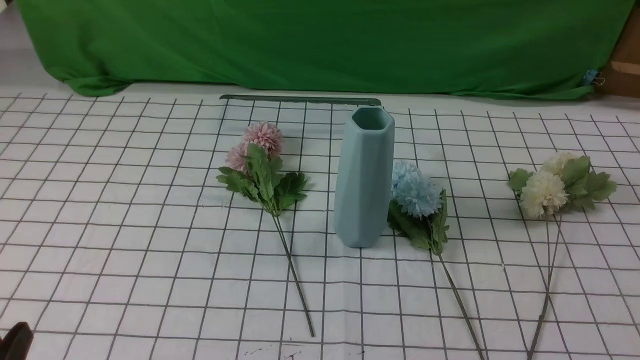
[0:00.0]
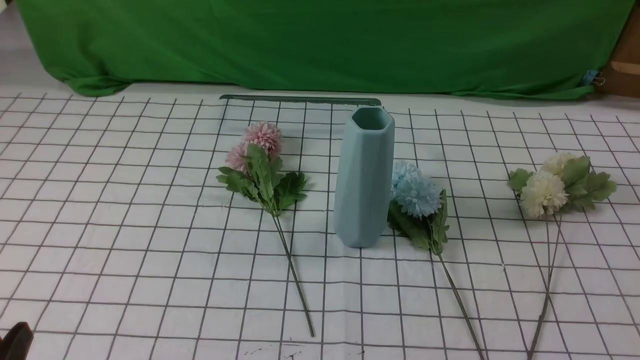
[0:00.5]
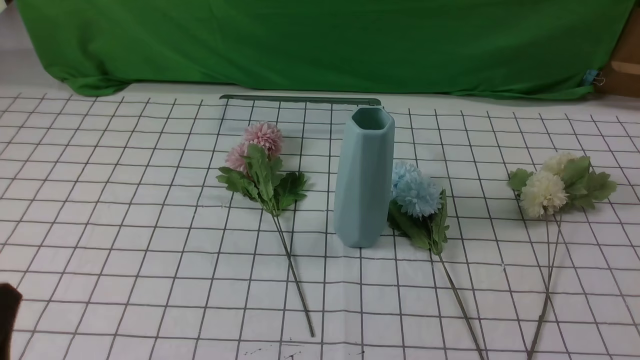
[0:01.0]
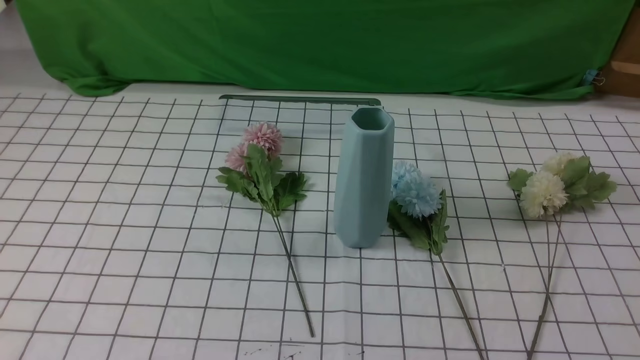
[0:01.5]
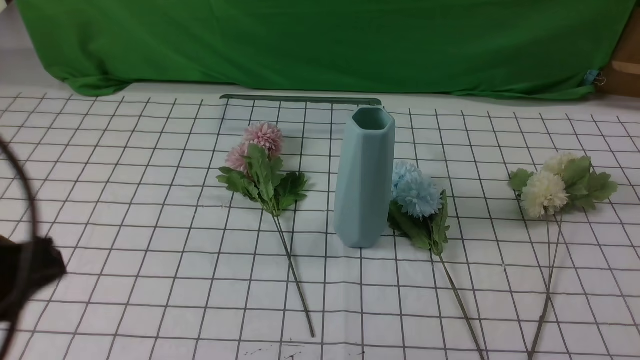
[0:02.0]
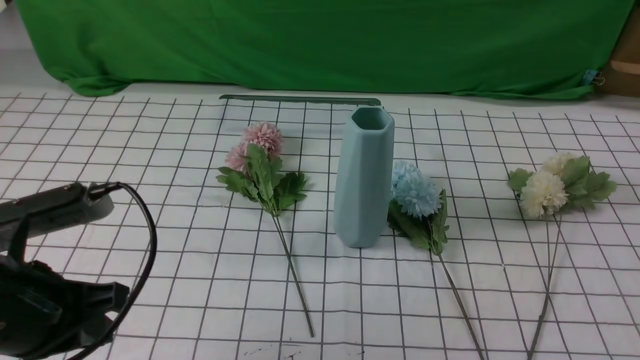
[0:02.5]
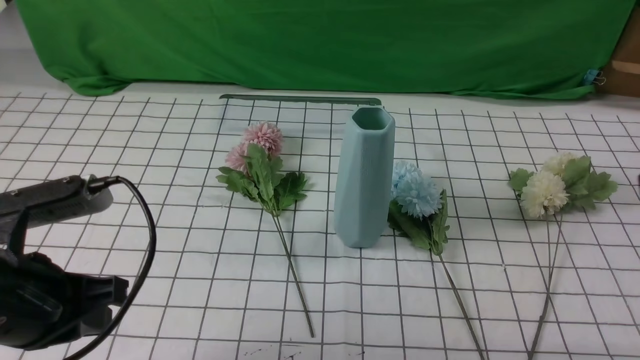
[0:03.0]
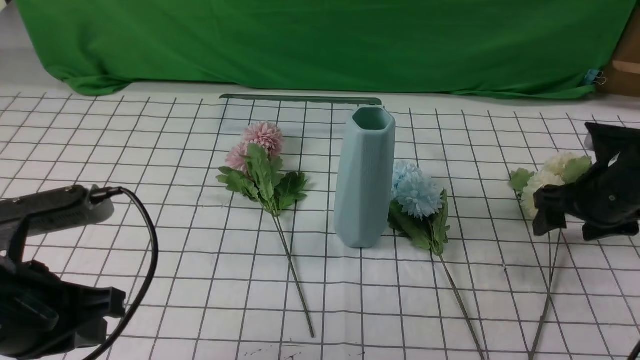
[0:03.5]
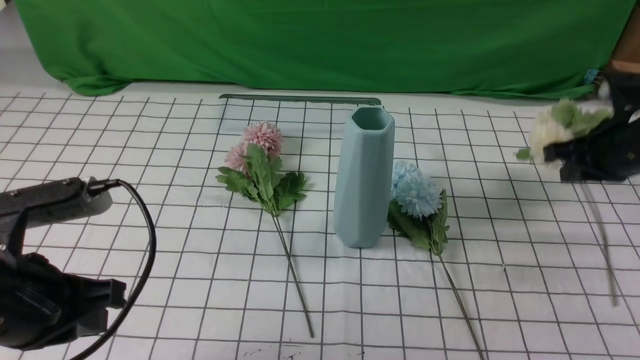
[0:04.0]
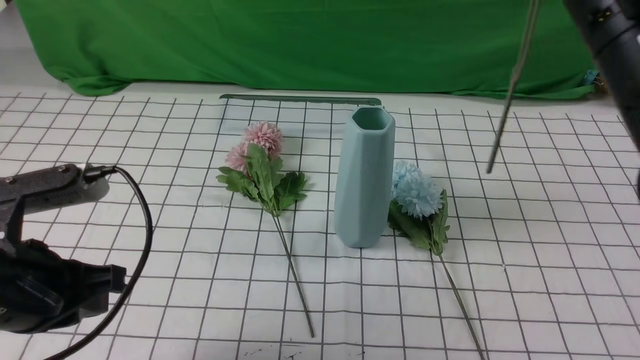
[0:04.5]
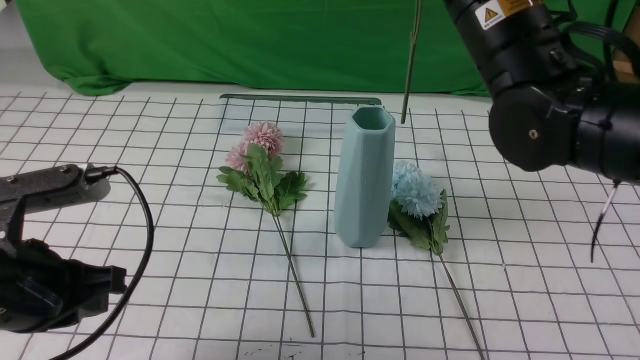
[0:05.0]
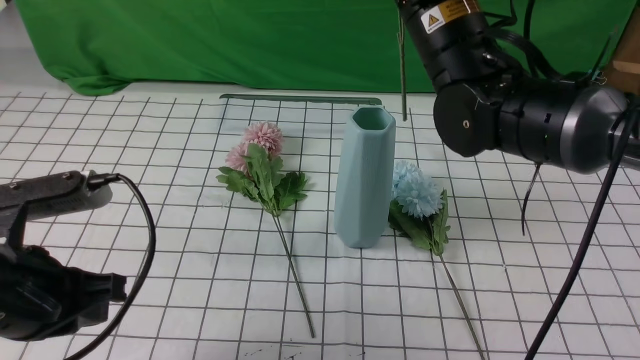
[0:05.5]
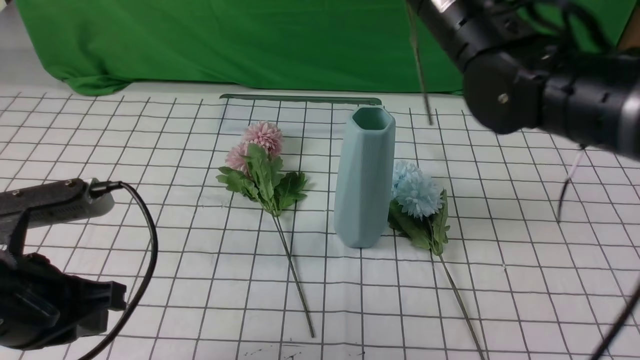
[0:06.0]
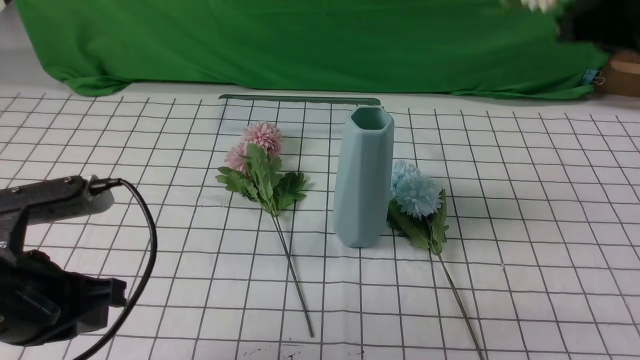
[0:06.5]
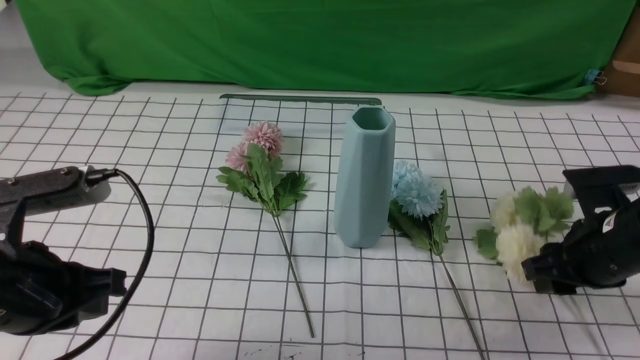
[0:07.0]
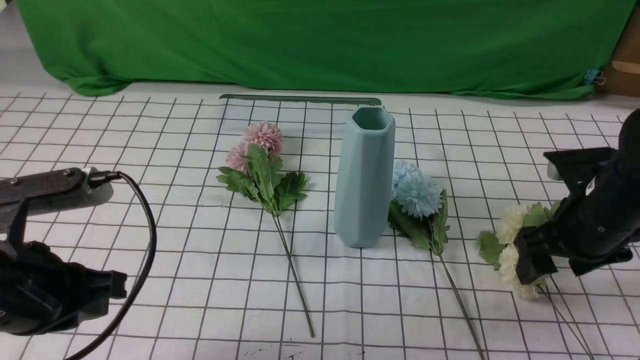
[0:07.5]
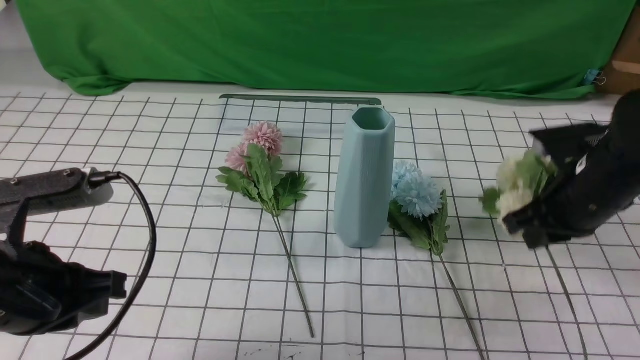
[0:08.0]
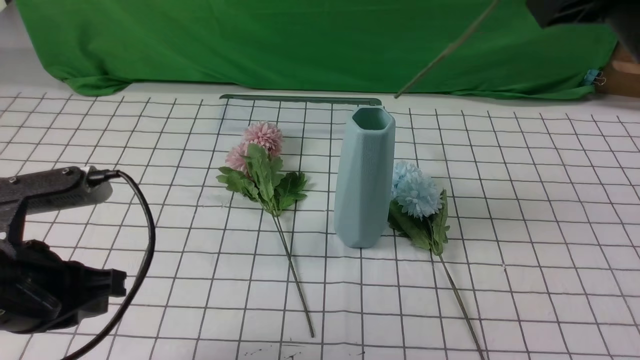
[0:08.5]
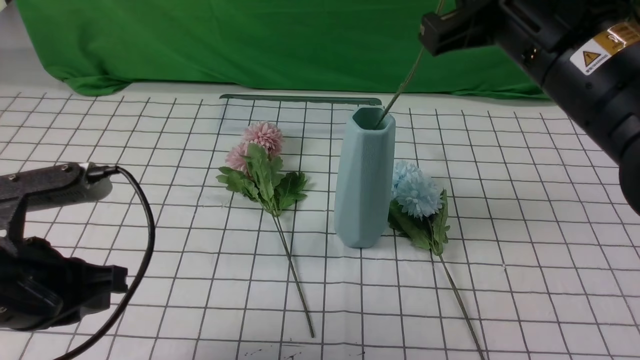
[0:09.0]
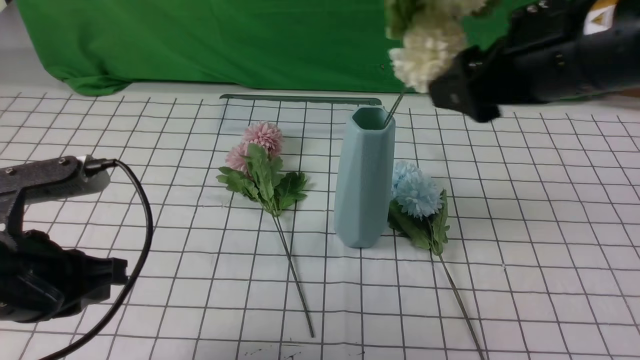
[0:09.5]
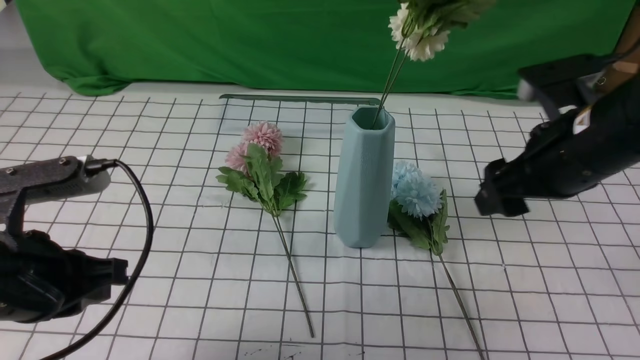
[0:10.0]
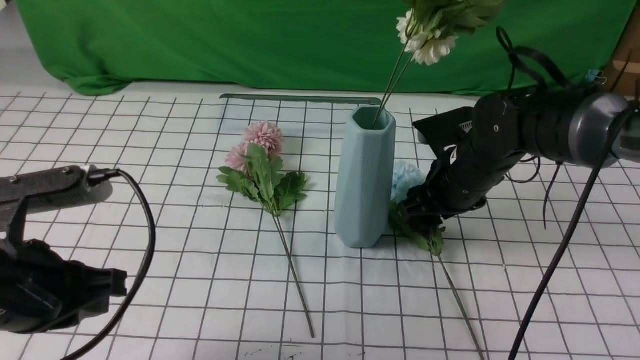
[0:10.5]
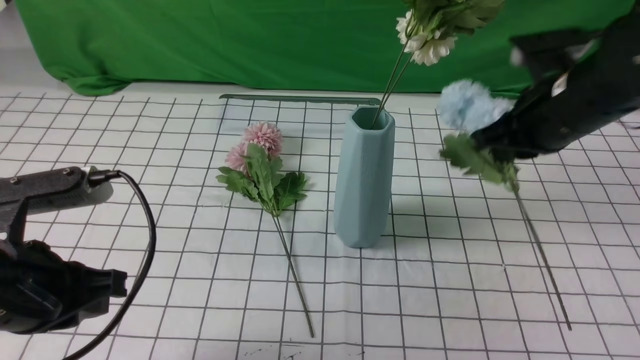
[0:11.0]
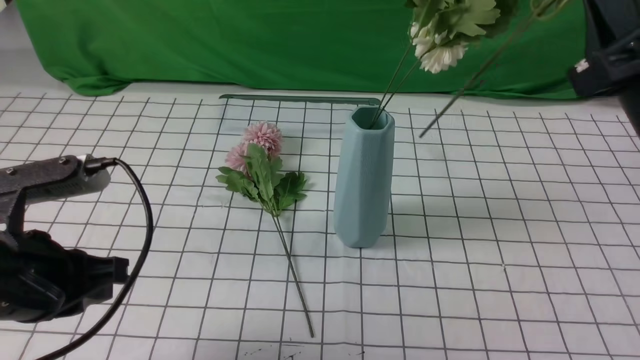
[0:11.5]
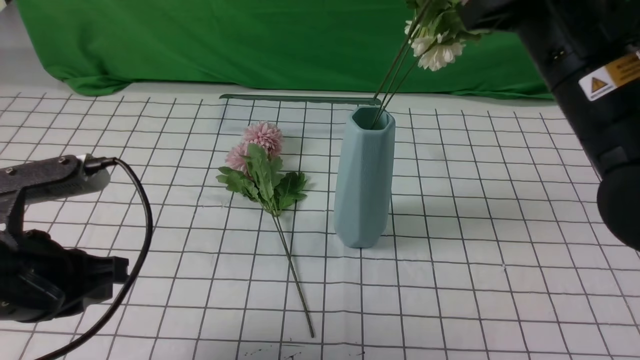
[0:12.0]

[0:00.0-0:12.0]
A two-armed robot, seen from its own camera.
Task of the whole recording: insert the flowers into the vase on the table with the white tablecloth.
Step, 0:00.0 to 0:07.5: use the right arm to grab a bunch of fresh flowers.
Step, 0:08.0 to 0:09.5: use the right arm to insert the flowers into the vase.
Step, 0:10.0 to 0:10.5: use the right arm to grab a bunch of fresh flowers.
0:00.0 to 0:02.0: The left gripper shifts some 15 cm upward and forward, and closes up.
0:02.0 to 0:04.0: The left gripper heads downward and forward, covering roughly 10 cm. The right gripper moves forward, about 30 cm, and opens, then closes again.
0:04.0 to 0:06.0: The right gripper goes about 20 cm to the left and upward.
0:06.0 to 0:08.0: The right gripper shifts about 20 cm to the right and downward, and opens, then closes again.
0:08.0 to 0:10.0: The right gripper reaches approximately 15 cm upward, then returns, and opens its fingers.
0:10.0 to 0:12.0: The right gripper moves upward, approximately 10 cm, and closes its fingers.

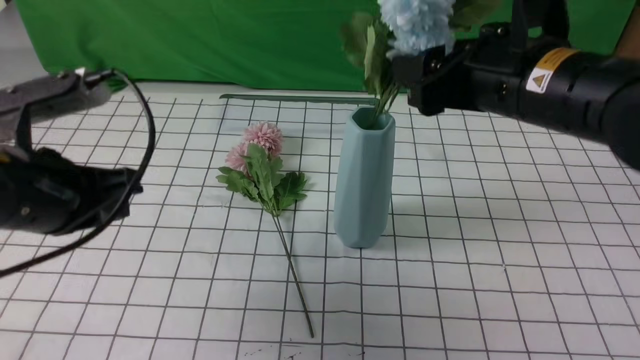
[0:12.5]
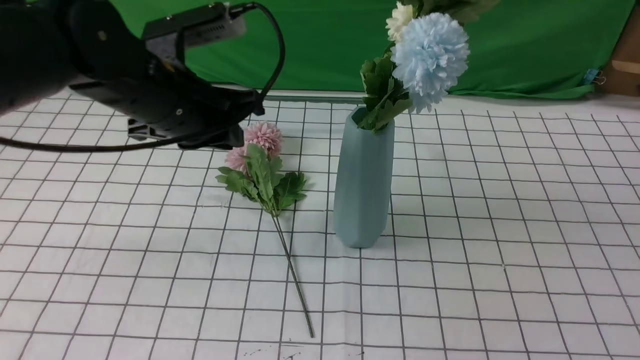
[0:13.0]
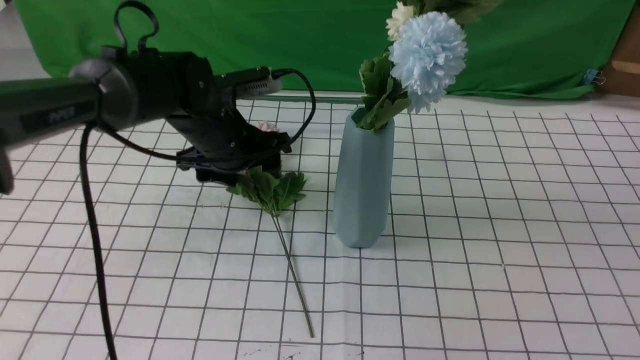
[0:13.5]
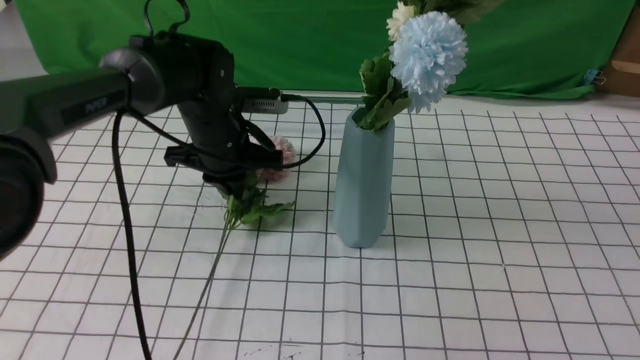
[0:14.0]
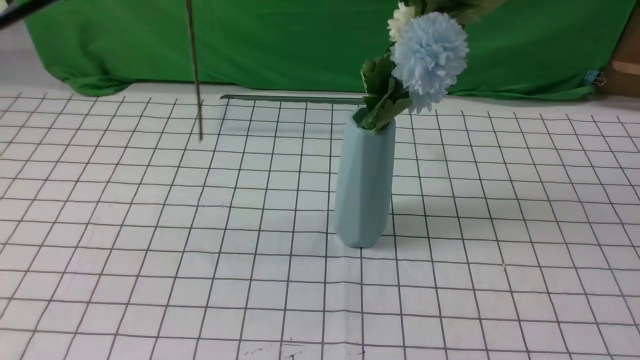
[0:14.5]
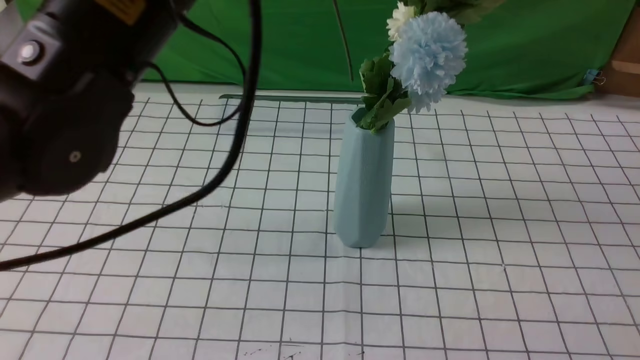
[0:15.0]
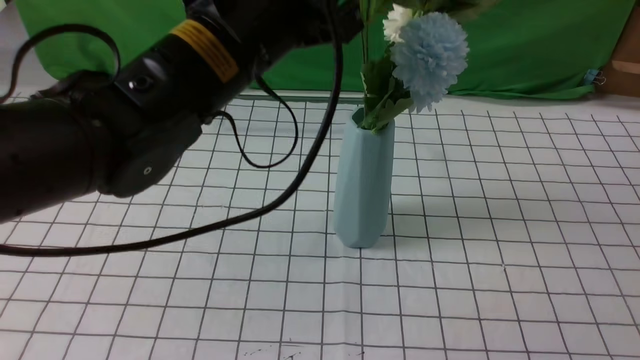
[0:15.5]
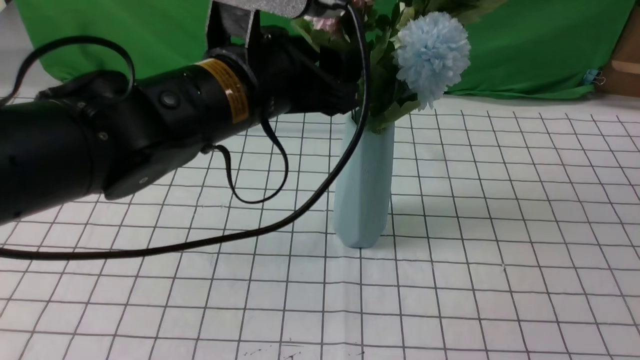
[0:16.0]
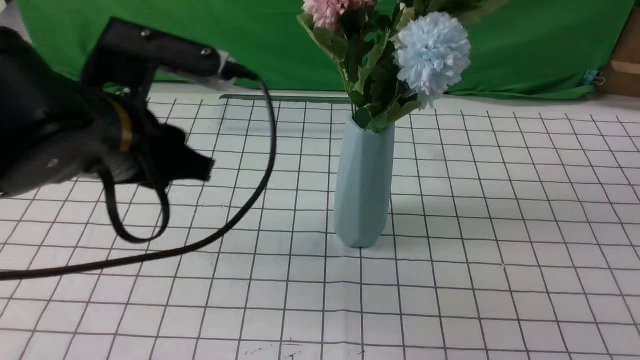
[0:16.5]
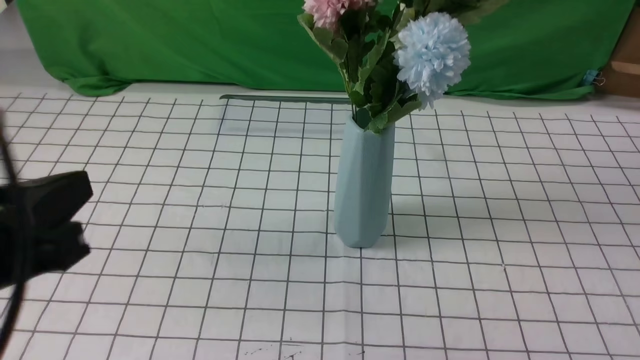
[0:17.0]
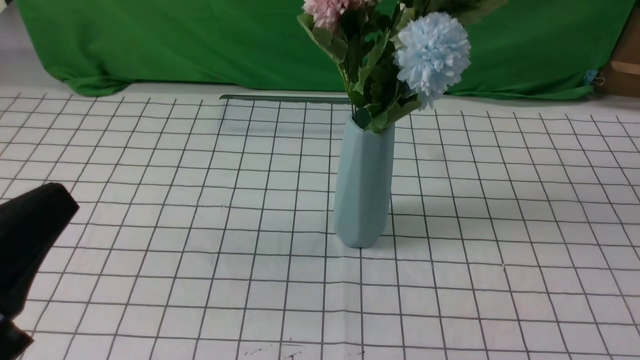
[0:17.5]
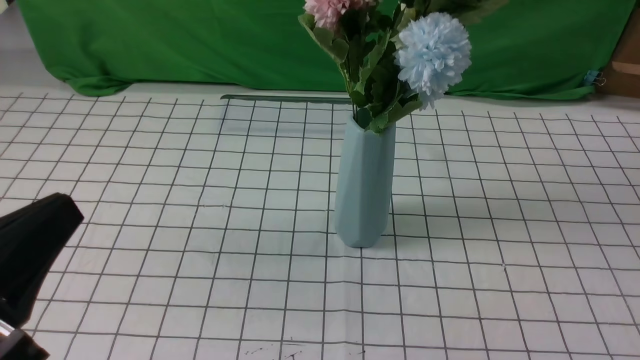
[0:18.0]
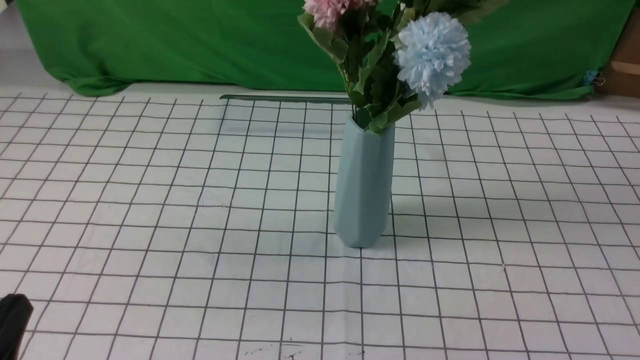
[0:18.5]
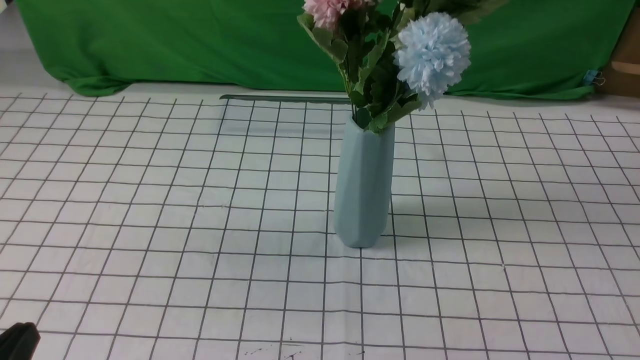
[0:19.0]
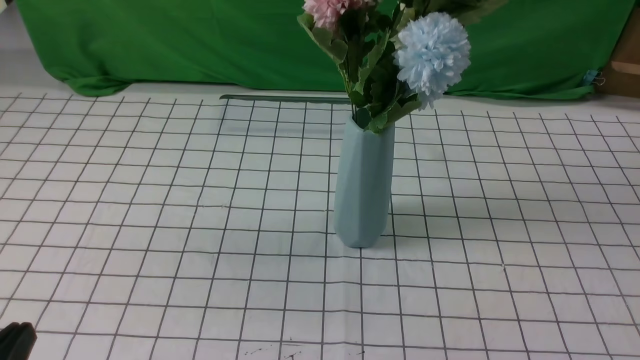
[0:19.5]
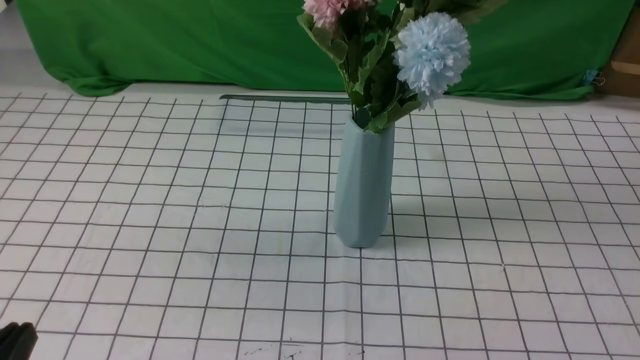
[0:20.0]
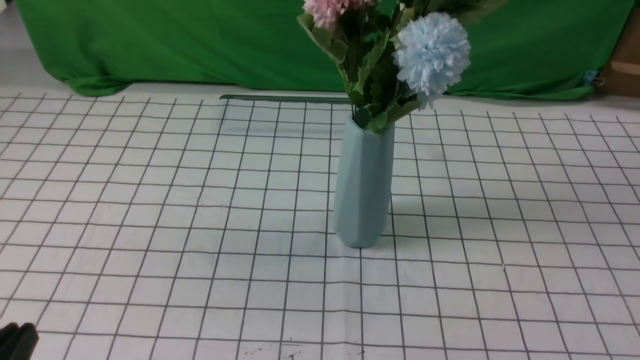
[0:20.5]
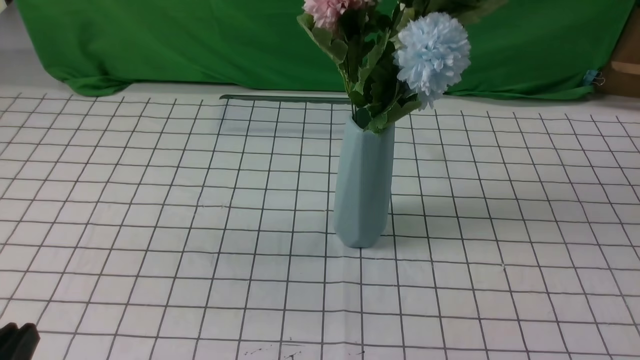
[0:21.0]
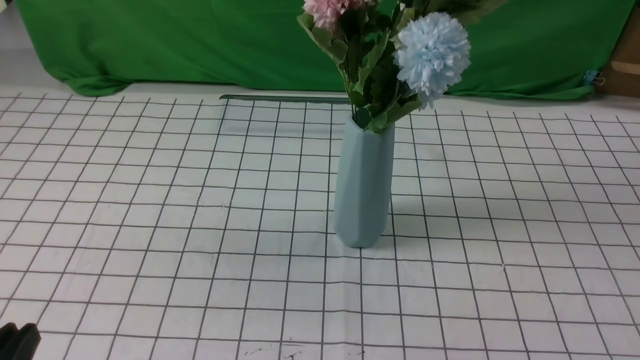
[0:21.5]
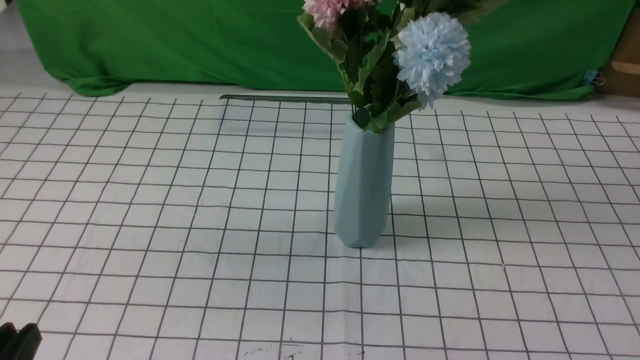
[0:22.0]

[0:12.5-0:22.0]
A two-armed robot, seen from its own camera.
Task of the whole recording: insert the flowers into the vase on the table with the white tablecloth.
Step, 0:13.0 to 0:14.0: use the left arm to grab a bunch of fresh flowers.
Step, 0:14.5 to 0:16.0: use the left arm to insert the flowers into the vase.
0:12.5 to 0:14.5: The right gripper moves backward, to the right and upward, some 25 cm, and closes. The left gripper shifts some 20 cm upward and to the right, and opens and closes again.
0:14.5 to 0:16.5: The left gripper travels downward by about 15 cm, and opens.
0:16.5 to 0:18.0: The left gripper moves backward and to the left, roughly 20 cm, and closes up. Meanwhile the right gripper heads downward and backward, covering roughly 15 cm.
0:18.0 to 0:20.0: The left gripper goes some 10 cm downward.
